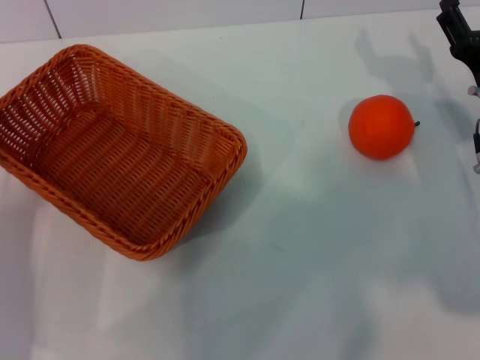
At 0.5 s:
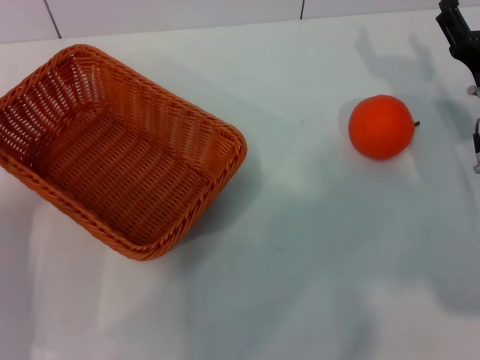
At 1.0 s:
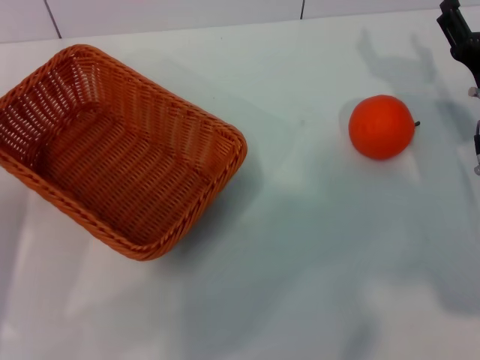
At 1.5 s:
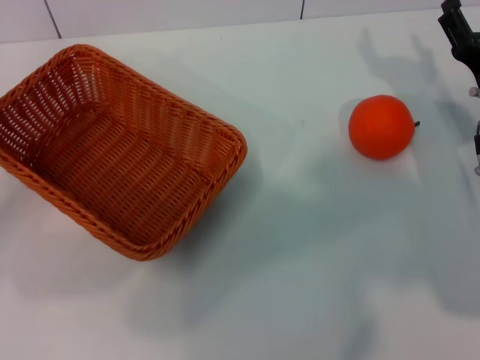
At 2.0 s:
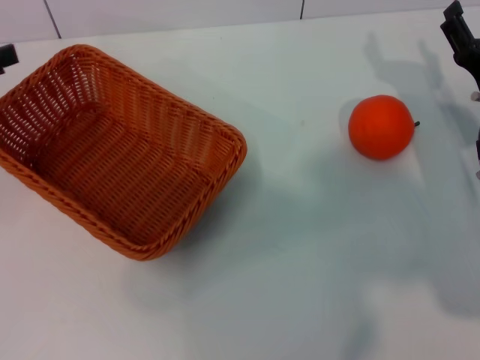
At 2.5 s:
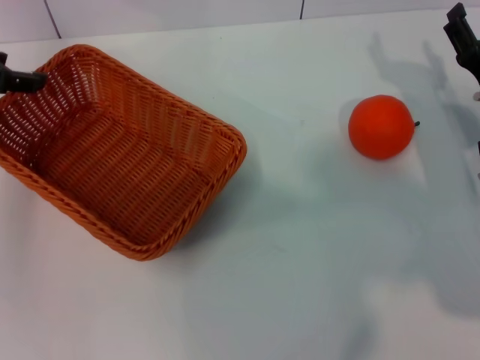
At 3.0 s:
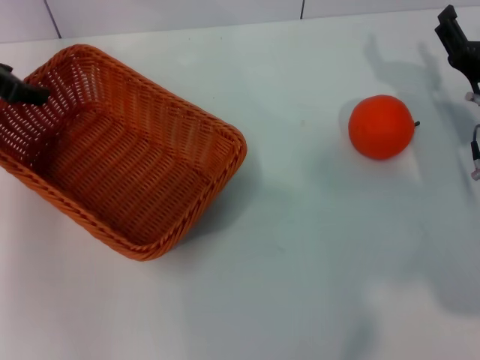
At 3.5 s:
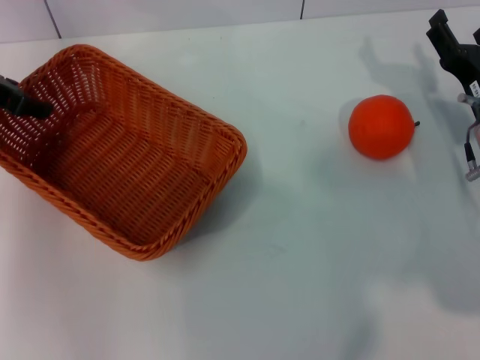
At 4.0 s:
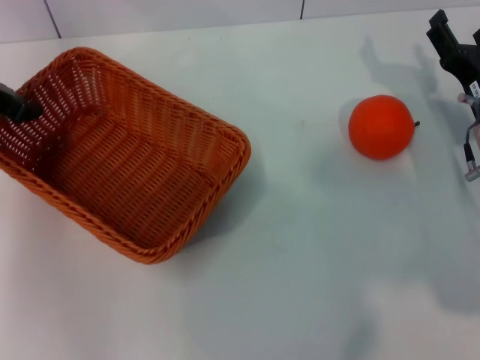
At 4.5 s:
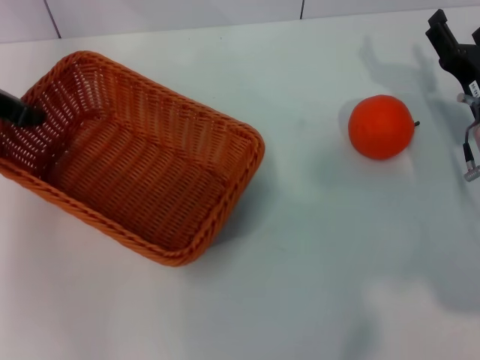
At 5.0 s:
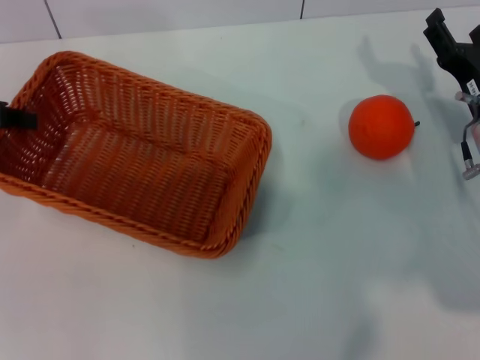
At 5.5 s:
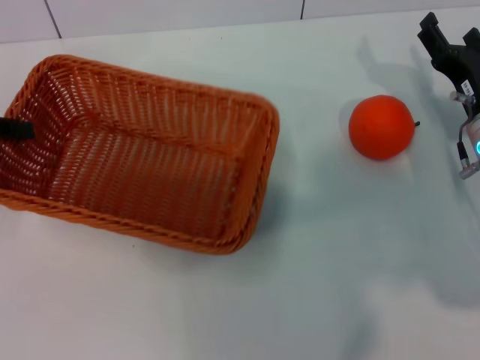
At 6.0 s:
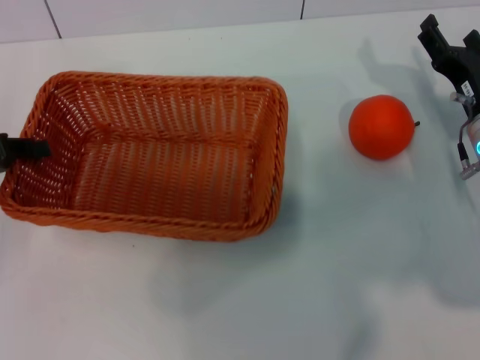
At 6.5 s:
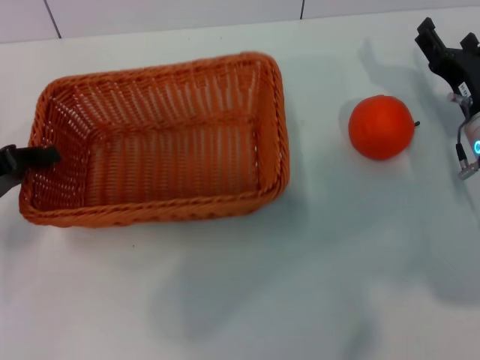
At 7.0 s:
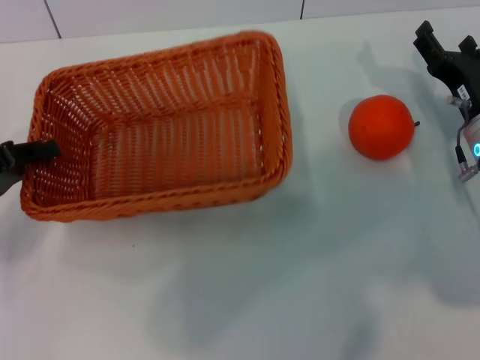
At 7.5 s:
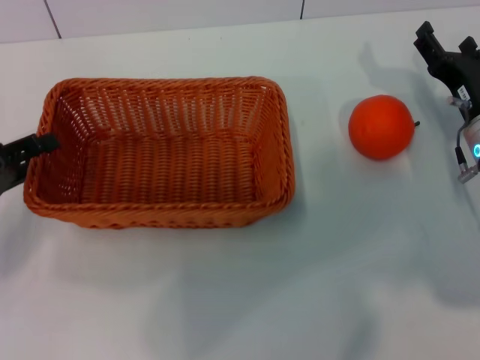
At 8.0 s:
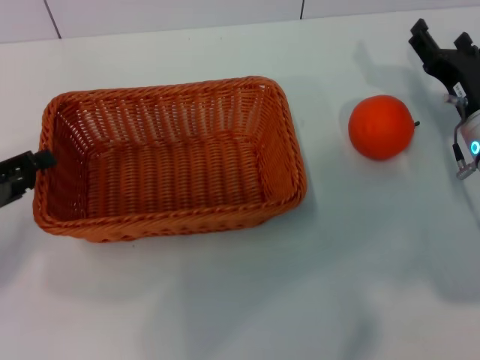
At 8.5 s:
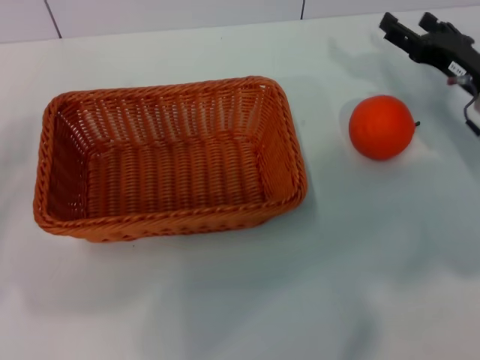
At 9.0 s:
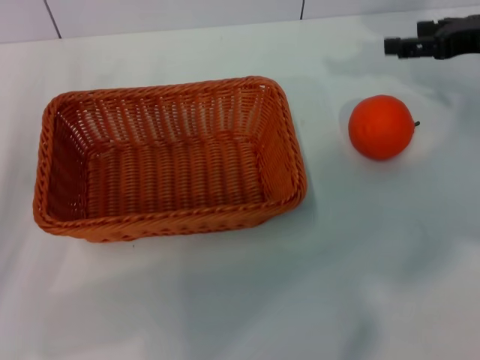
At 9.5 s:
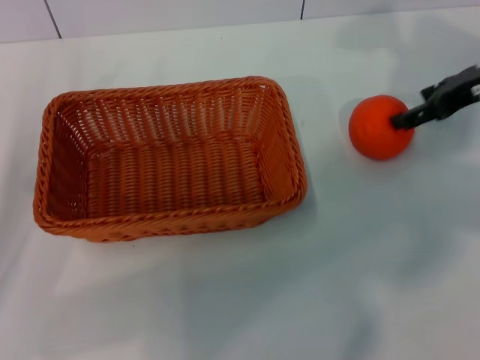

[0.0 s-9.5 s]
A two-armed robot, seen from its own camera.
Task of the whole recording: the left gripper pick up the yellow basket and place it horizontally in the middle of the table, the right gripper pick up the orange and place it into the yellow basket.
Step, 0.0 to 4.5 s: Pick up the light basket with the left gripper.
Step, 5.0 to 8.0 s: Place the light basket in the center of view with the left gripper.
0.0 to 2.0 s: The left gripper moves upward, forward and to the left, approximately 20 cm.
2.0 to 4.0 s: The left gripper is displaced forward and to the right by approximately 10 cm, and closes up.
4.0 to 5.5 s: The left gripper travels backward and to the left by some 10 cm, and closes its fingers.
5.5 to 7.5 s: The left gripper is displaced downward and backward by some 10 cm, and opens its fingers.
7.5 to 9.5 s: The right gripper travels upward and forward by approximately 15 cm.

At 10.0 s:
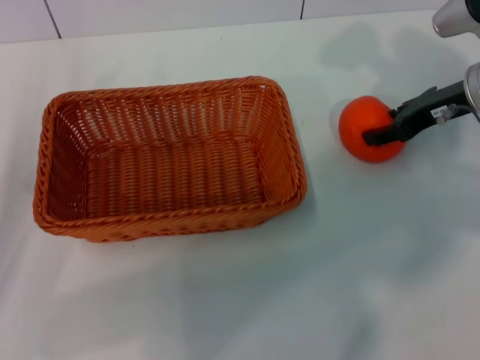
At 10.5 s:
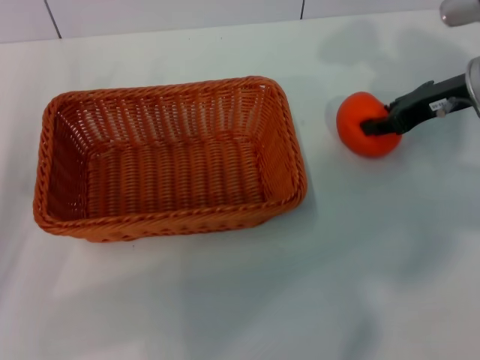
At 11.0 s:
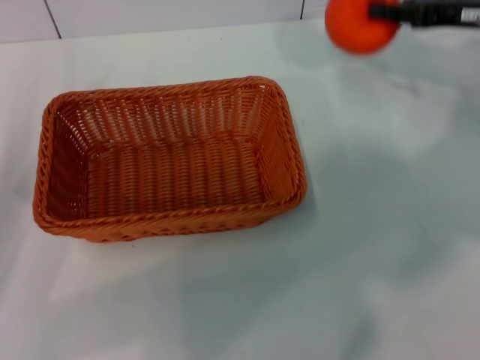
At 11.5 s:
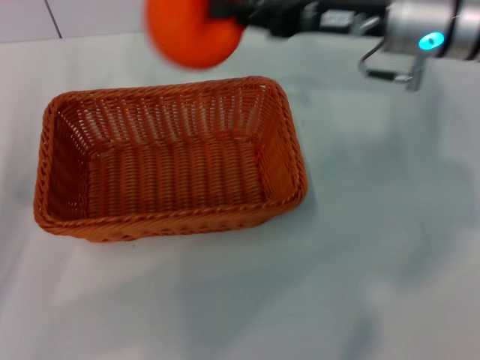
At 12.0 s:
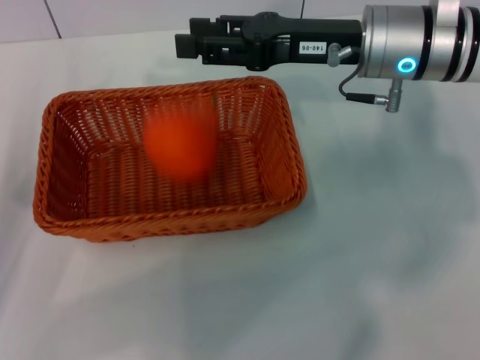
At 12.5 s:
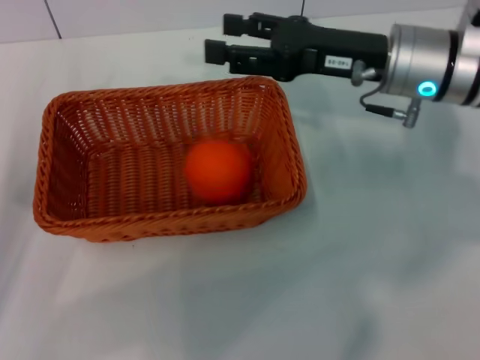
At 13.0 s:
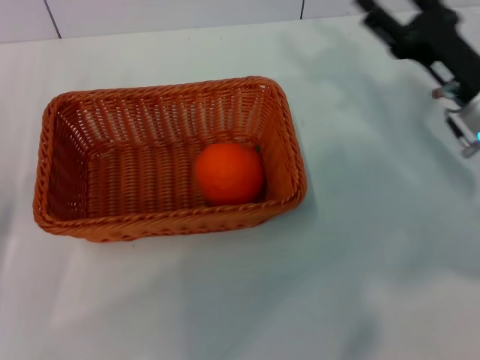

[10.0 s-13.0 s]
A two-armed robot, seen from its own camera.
Task of the whole recording: the left gripper pick up the yellow basket and place it horizontally in the middle of the table, the right gripper pick up the orange and place it into the yellow basket.
Step, 11.0 to 12.0 s: Place the orange into the light basket with the right gripper.
10.0 to 11.5 s: The right gripper shifts roughly 10 cm to the left and upward, and closes its fingers.
11.5 to 13.0 s: The right gripper heads downward, to the right and backward, covering about 15 cm, and opens.
